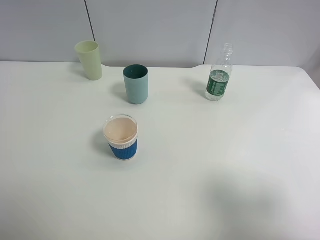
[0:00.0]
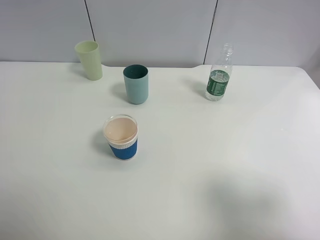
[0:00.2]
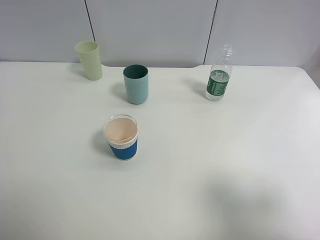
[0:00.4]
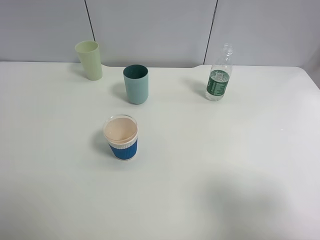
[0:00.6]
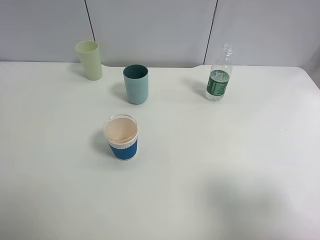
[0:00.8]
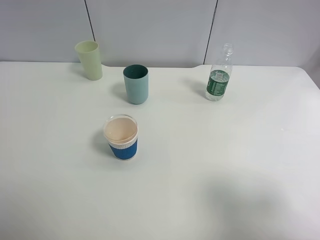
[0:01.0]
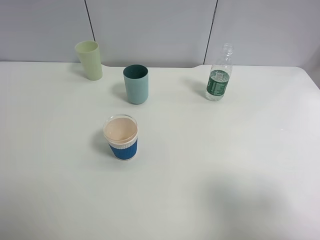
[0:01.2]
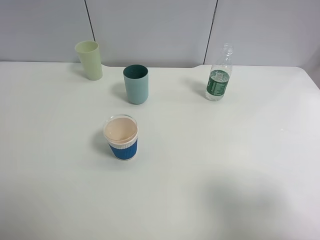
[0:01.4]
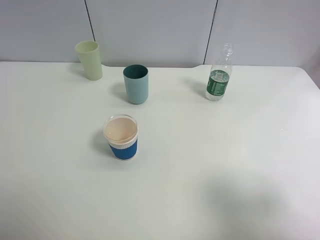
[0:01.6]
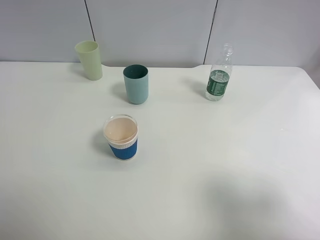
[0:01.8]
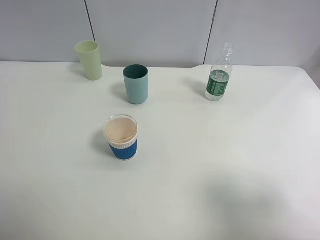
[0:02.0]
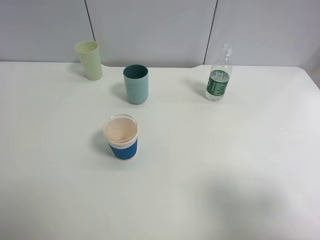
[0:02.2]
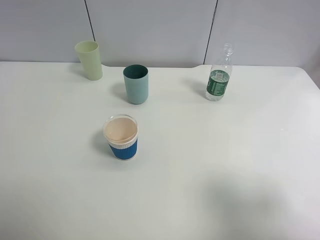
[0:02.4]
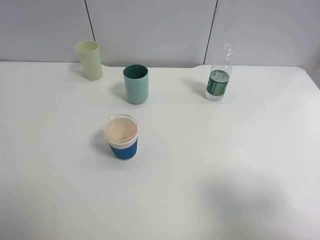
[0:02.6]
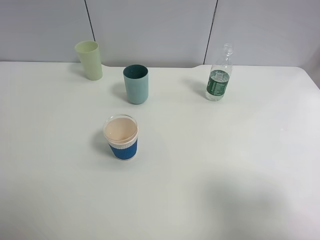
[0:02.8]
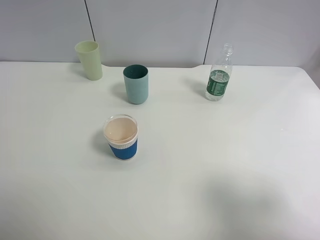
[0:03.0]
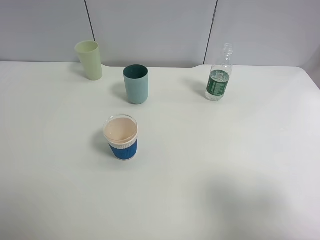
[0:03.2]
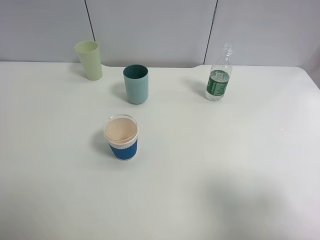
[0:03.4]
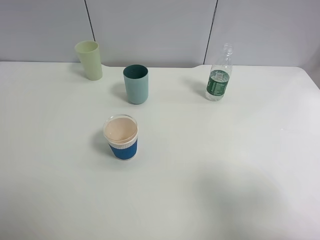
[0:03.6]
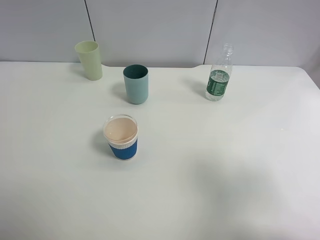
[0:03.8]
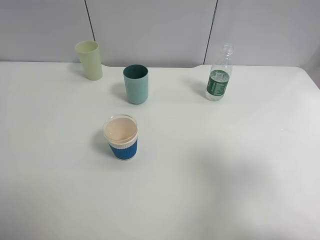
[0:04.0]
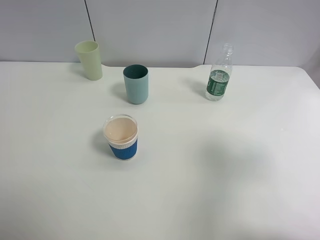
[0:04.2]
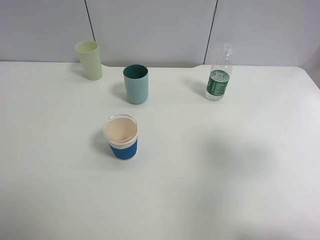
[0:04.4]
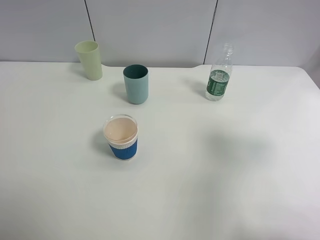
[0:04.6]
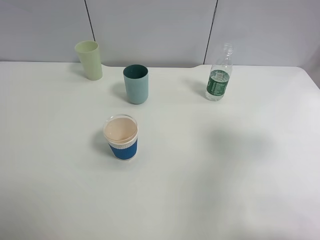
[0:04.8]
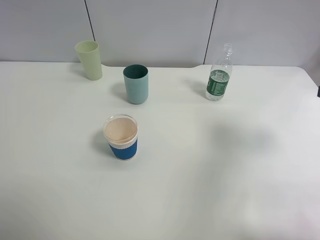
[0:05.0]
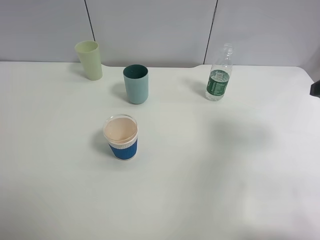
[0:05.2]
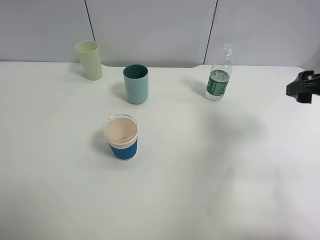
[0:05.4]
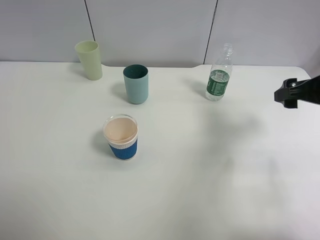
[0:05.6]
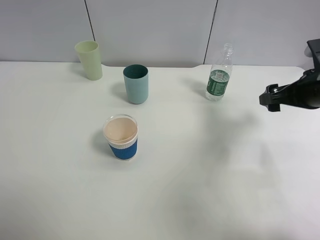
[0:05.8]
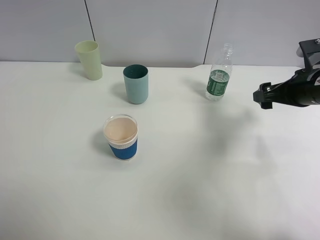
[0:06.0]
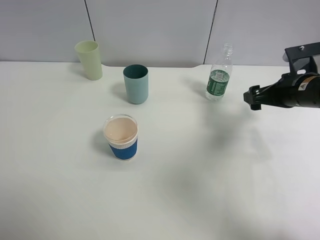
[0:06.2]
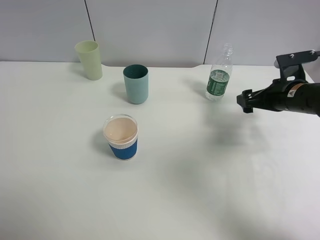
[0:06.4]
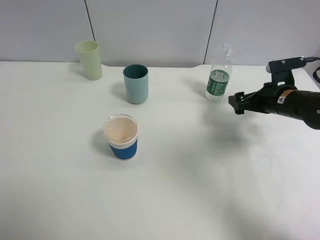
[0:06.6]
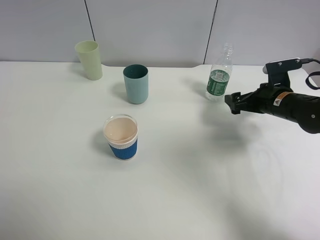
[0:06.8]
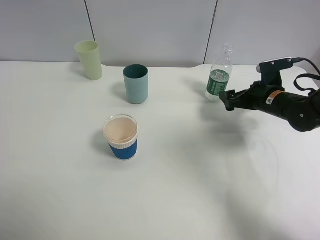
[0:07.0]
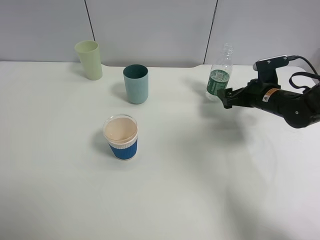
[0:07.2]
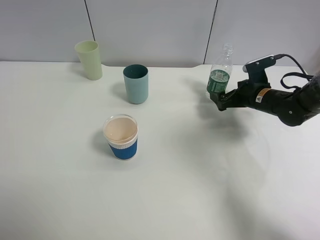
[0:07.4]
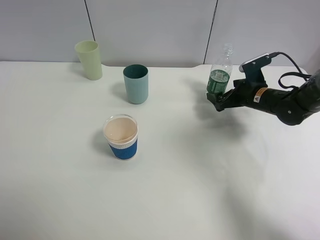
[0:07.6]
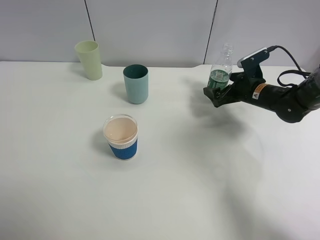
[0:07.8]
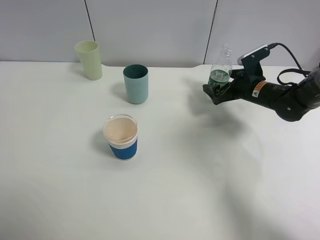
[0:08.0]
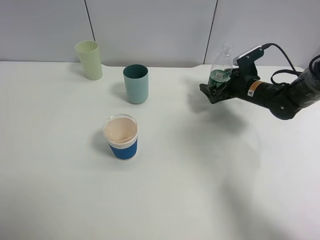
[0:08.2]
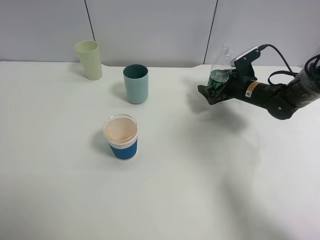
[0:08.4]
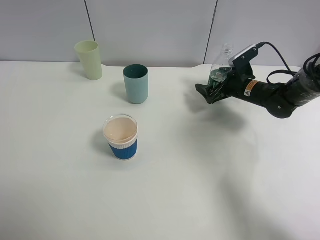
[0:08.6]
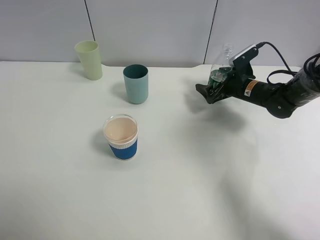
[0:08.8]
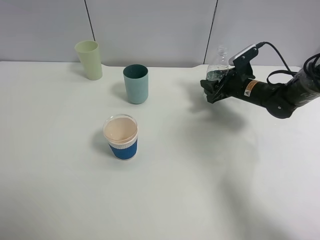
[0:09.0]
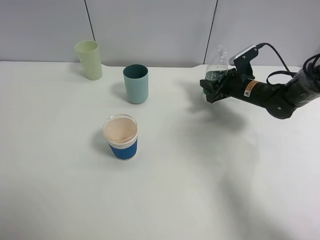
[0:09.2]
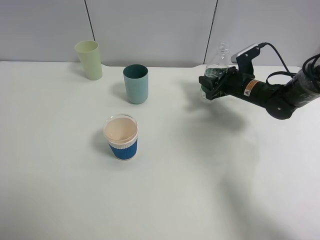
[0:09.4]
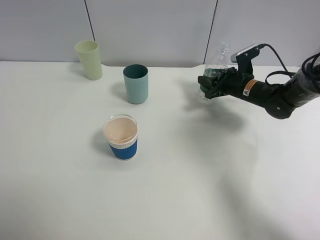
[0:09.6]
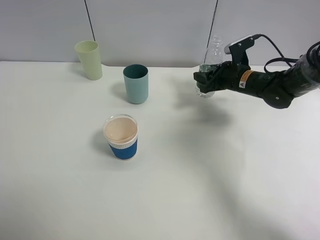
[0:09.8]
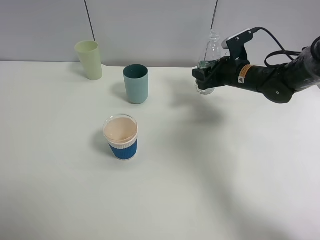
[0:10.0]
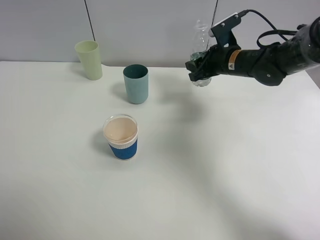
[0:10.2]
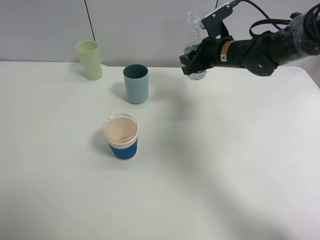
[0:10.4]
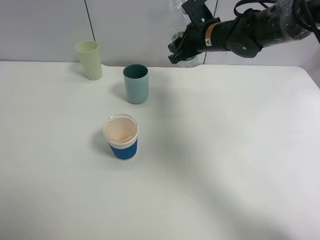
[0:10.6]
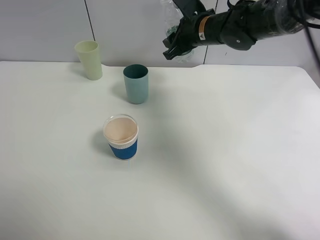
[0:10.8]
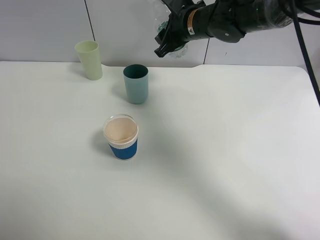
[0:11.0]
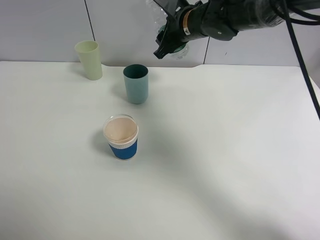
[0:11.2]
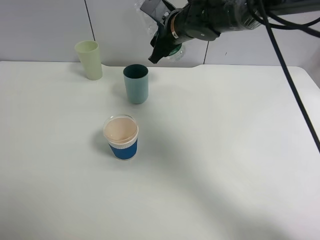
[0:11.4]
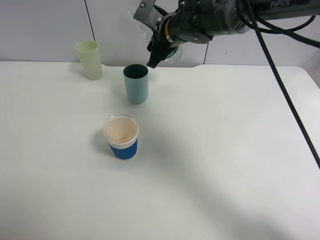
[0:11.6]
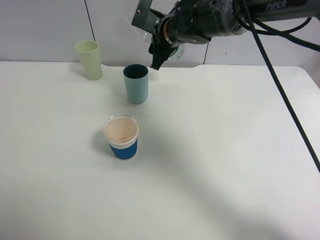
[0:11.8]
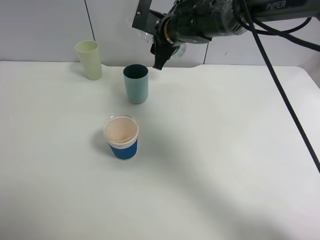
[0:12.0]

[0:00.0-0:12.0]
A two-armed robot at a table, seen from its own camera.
Task of the whole recording: use a clamp to hold the bottle of the drink, pour the beverage into a random cup, then clamp the cup containing the drink and pour the drink into another random cup.
Step, 0:00.0 to 0:09.6: Pick up the water bottle with right gripper.
0:00.0 to 0:03.0: Neither gripper changes place.
0:03.0 to 0:04.4: The right gripper moves forward, about 10 cm.
0:04.4 to 0:06.0: The right gripper travels forward and downward by roughly 20 cm.
0:06.0 to 0:07.6: The right gripper heads downward and forward, covering some 15 cm.
0:07.6 to 0:09.0: The right gripper closes its fingers.
0:09.0 to 0:10.4: The right gripper heads upward and to the left, covering some 15 cm.
0:10.4 to 0:12.0: The right gripper travels to the left by approximately 10 cm.

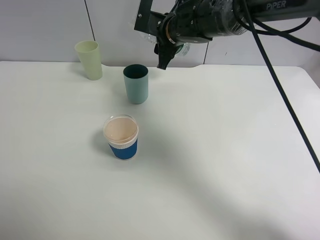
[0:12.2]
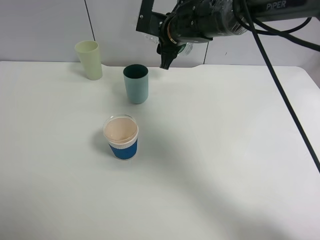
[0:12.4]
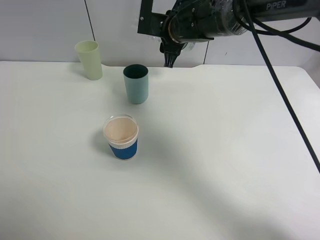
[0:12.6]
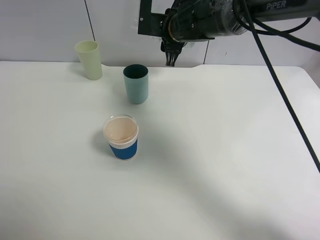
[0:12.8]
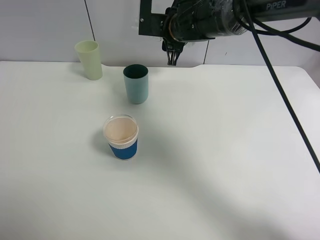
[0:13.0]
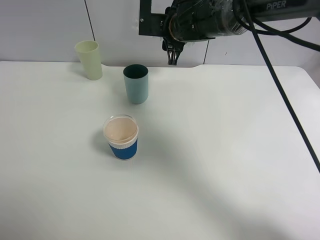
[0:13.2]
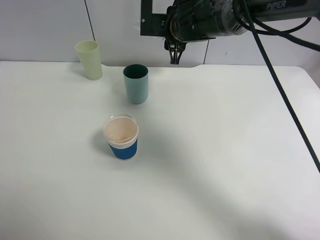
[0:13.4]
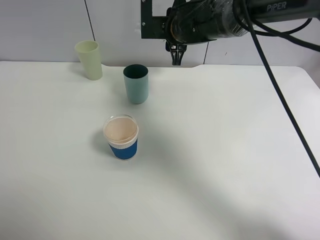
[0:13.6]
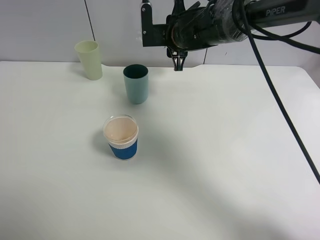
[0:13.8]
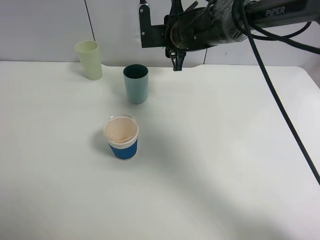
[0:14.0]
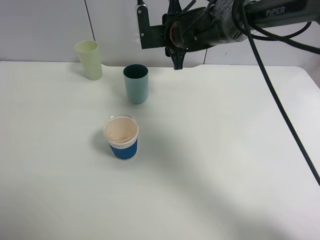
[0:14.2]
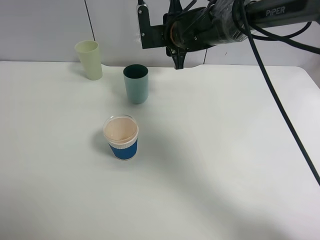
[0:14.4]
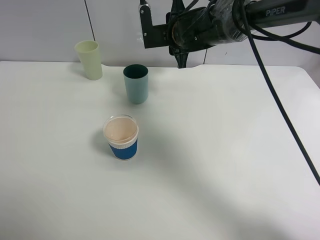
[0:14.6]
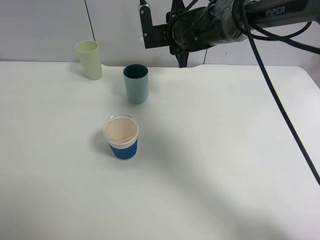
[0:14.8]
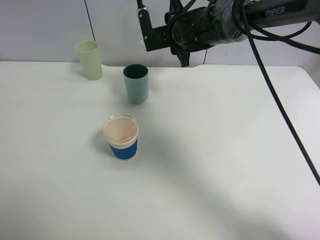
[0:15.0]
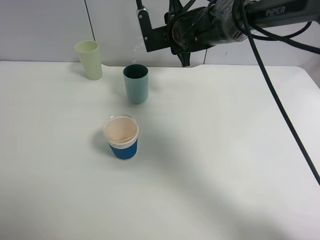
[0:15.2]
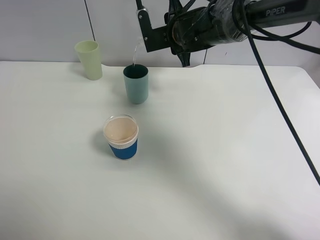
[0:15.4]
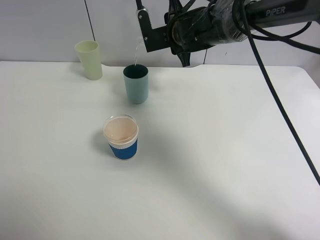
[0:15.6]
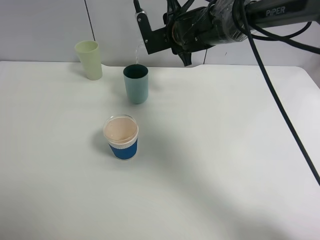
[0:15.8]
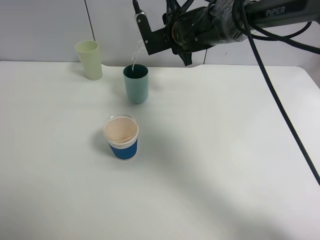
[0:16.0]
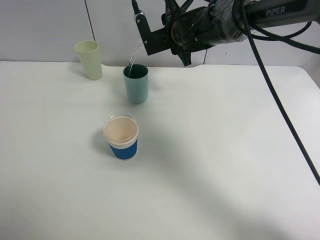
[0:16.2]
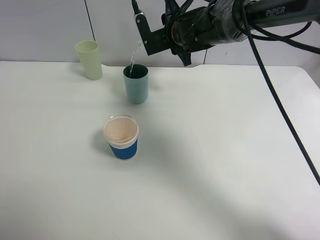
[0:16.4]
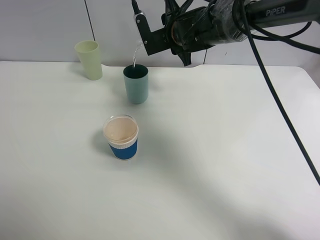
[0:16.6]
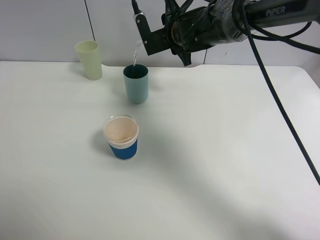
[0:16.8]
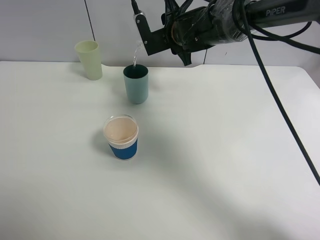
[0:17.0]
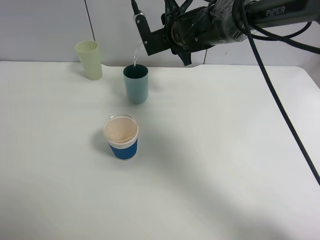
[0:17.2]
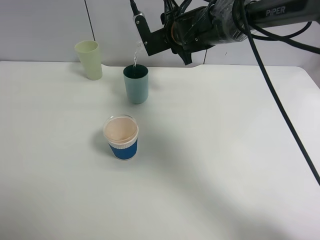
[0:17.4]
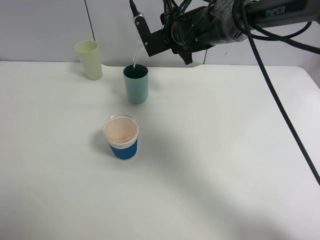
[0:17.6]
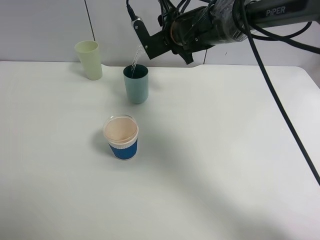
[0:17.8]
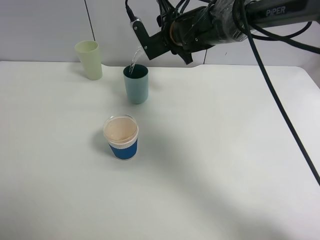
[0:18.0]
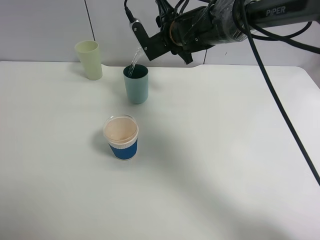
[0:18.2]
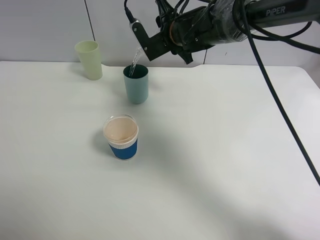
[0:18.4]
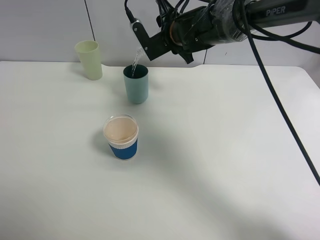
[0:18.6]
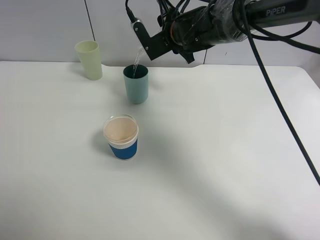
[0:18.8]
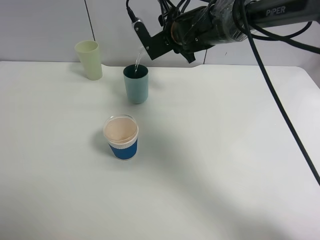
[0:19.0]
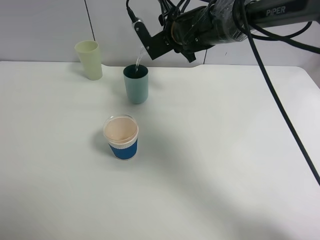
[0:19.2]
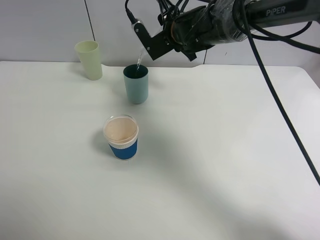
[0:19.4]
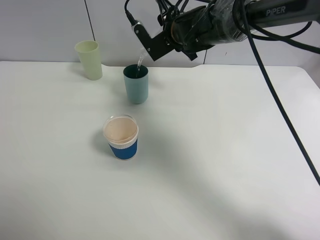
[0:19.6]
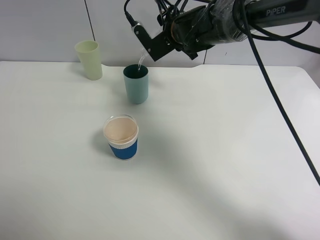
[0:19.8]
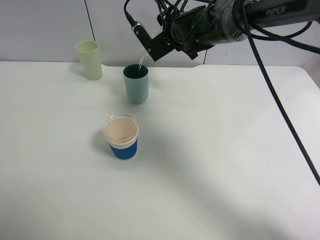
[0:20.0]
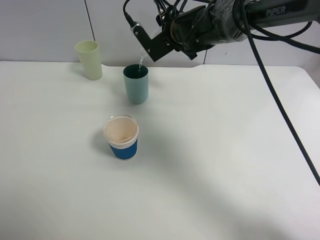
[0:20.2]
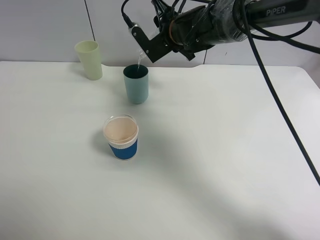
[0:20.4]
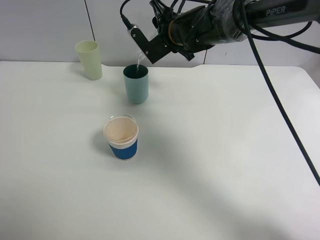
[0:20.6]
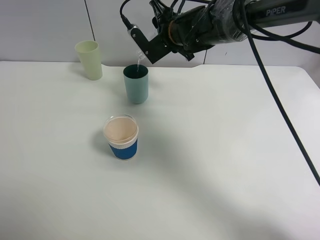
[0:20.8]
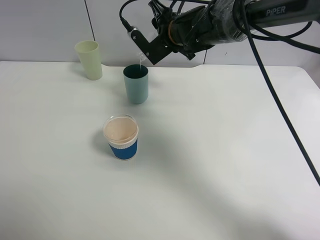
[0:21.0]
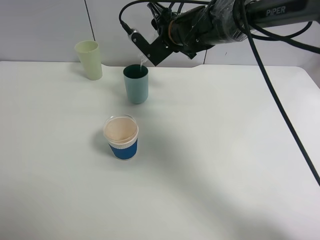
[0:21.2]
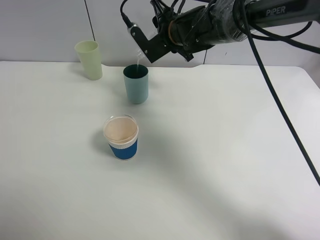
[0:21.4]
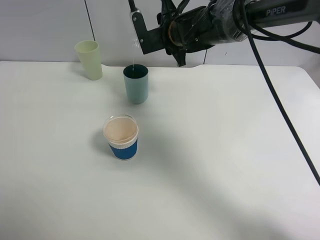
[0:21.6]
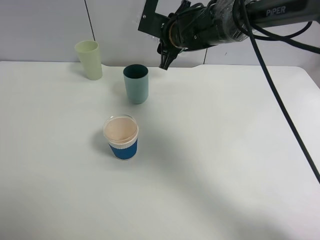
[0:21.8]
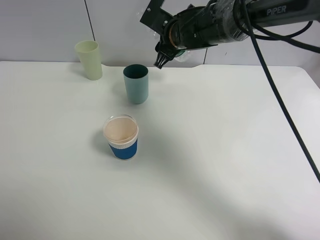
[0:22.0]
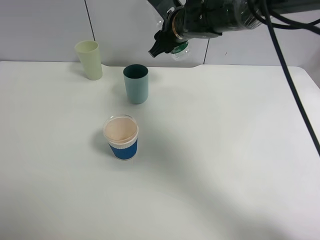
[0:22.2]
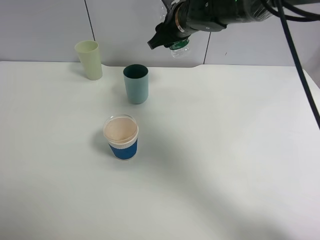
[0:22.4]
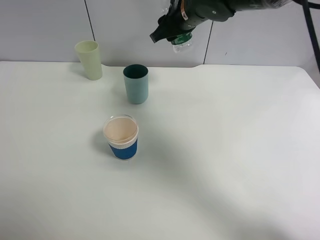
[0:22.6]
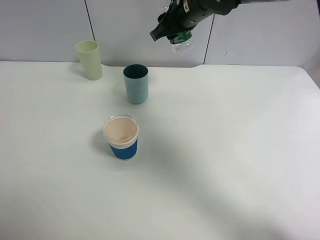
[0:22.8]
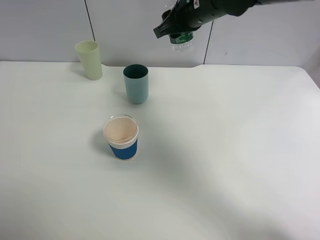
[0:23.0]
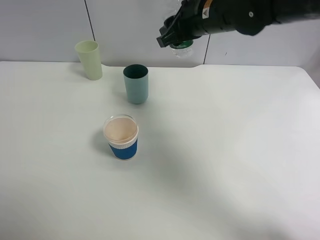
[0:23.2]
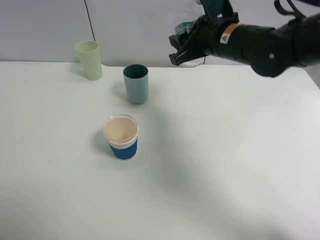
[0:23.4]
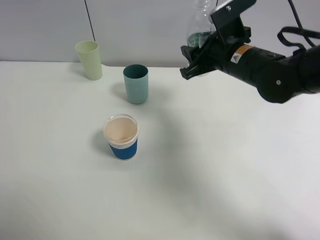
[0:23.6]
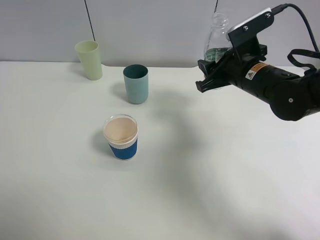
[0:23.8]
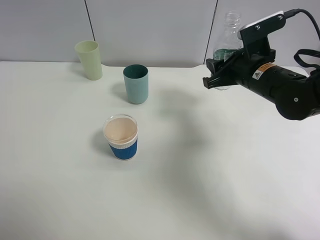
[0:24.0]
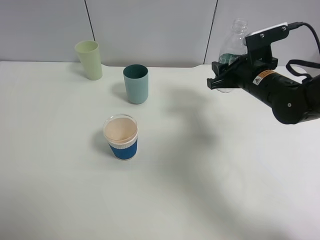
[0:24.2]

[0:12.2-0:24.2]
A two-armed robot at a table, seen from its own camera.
Task of the whole recording: use a clamp to hold the bottle of the drink, pour the beverage into a random cup, then clamp the cup containing the drink and pour the drink into another random cup.
Step, 0:12.2 to 0:21.6: Pour water into the blue plastic cup with right gripper.
0:12.2 to 0:13.8: The grippers stay close to where they were, moving slightly.
0:13.8 to 0:16.6: The grippers move only a little.
0:16.6 to 0:19.8: There are only small adjustments of the grippers.
0:19.8 to 0:21.2: The grippers make only small movements.
0:21.2 to 0:22.6: The right gripper moves upward, about 5 cm.
0:22.6 to 0:24.2: The right gripper goes approximately 20 cm to the right, downward and backward.
